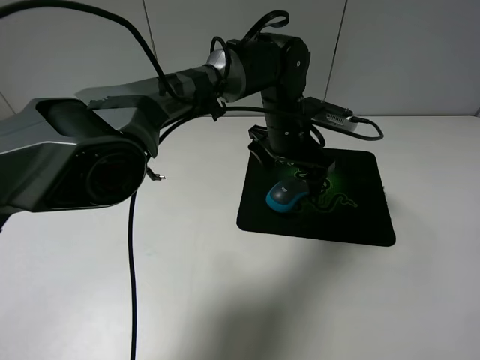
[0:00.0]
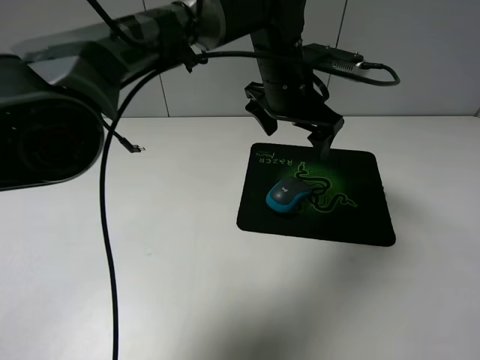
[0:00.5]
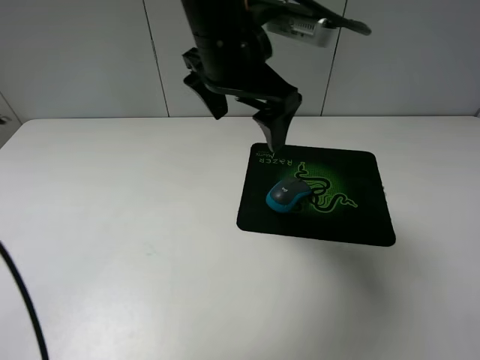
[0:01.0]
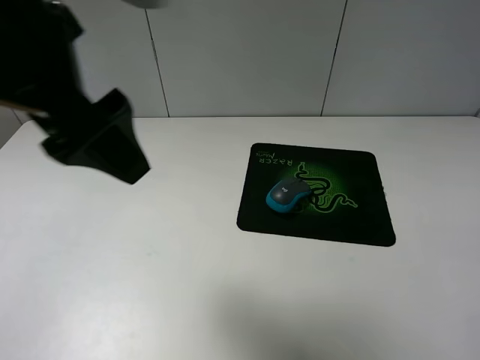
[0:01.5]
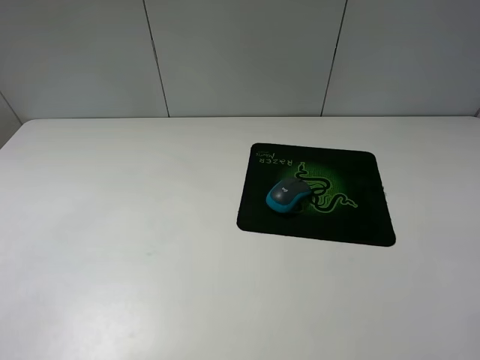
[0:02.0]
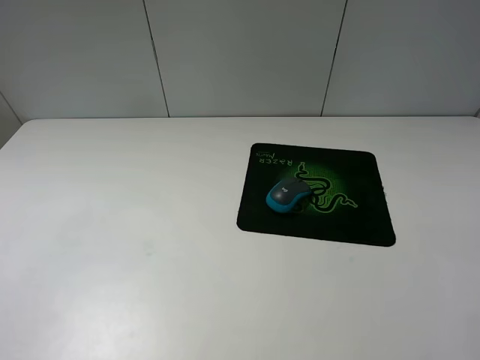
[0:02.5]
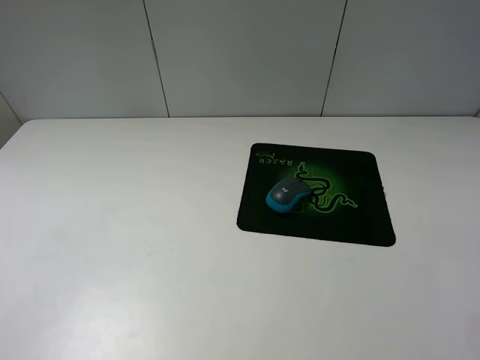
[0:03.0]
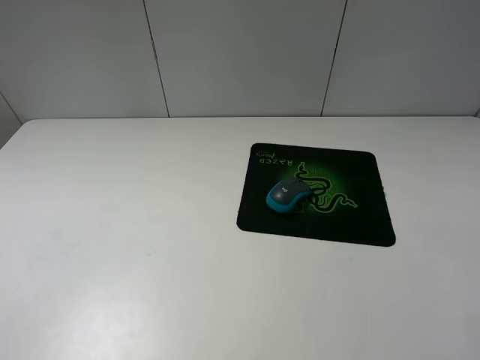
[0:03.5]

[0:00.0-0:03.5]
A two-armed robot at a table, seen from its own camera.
0:00.0 to 0:02.0: The left gripper moves to the left, backward and upward, roughly 50 cm.
